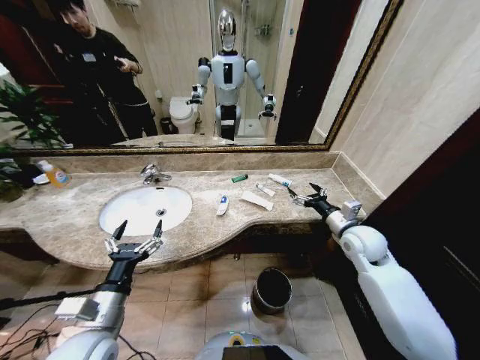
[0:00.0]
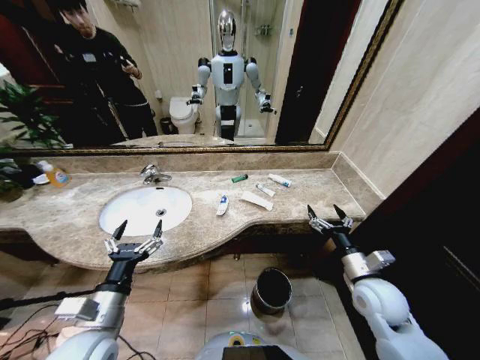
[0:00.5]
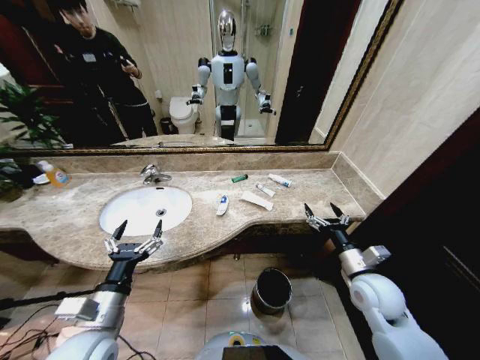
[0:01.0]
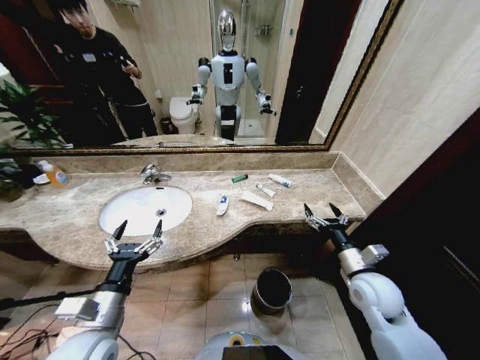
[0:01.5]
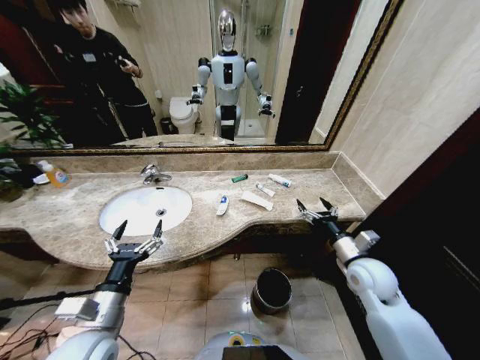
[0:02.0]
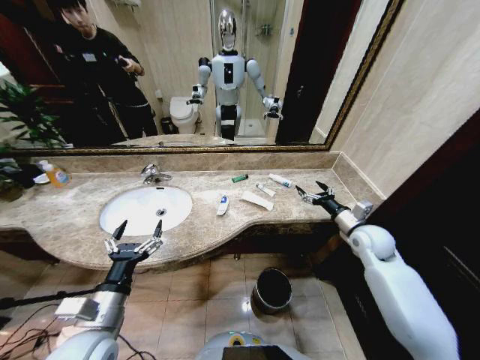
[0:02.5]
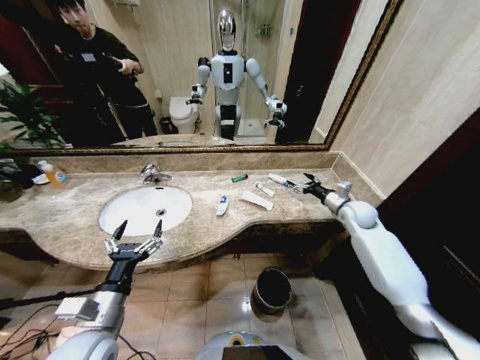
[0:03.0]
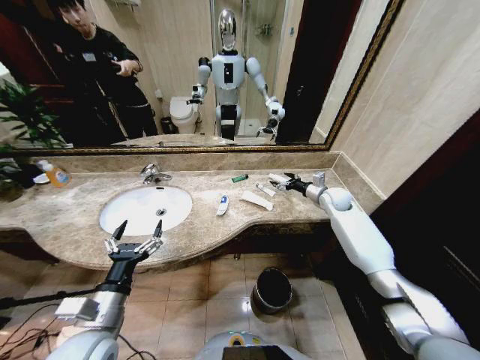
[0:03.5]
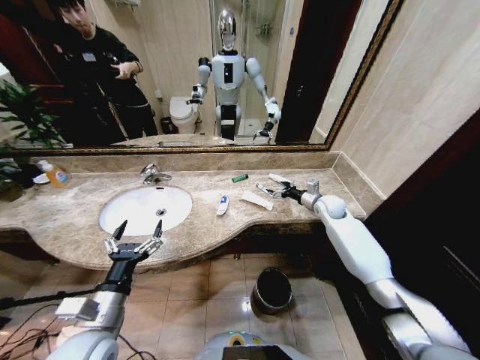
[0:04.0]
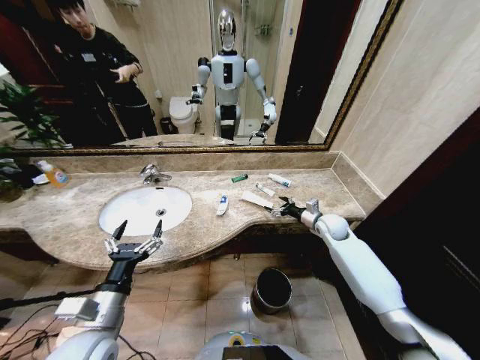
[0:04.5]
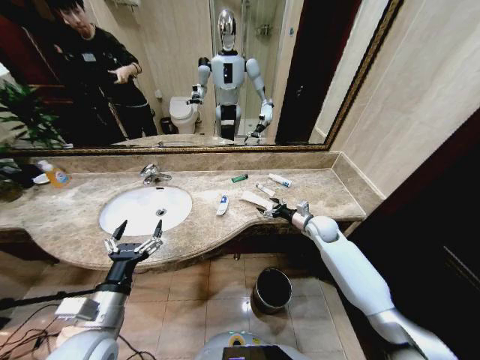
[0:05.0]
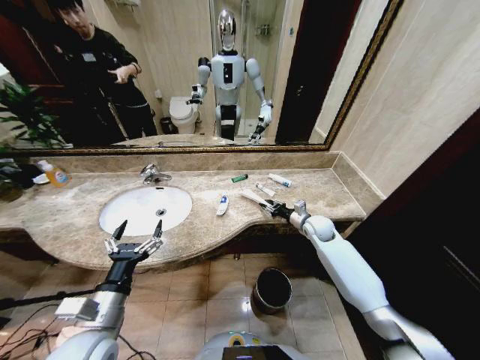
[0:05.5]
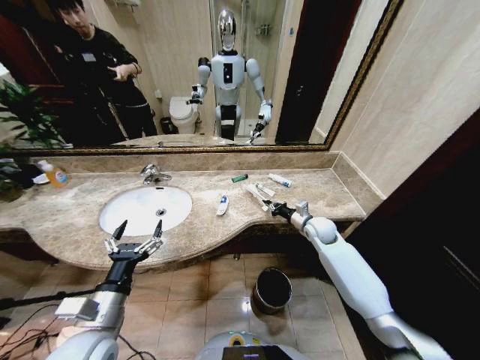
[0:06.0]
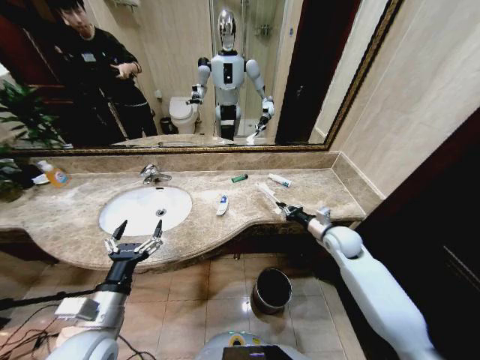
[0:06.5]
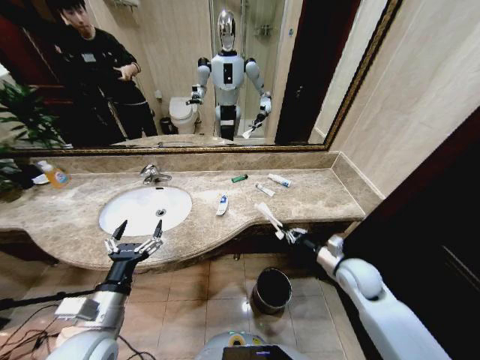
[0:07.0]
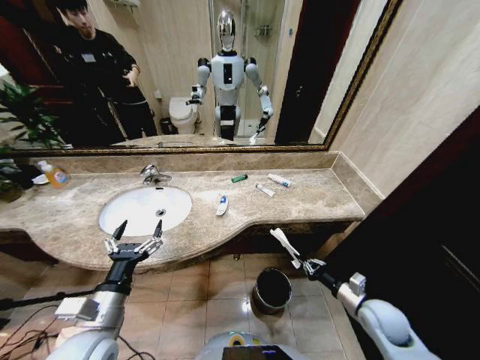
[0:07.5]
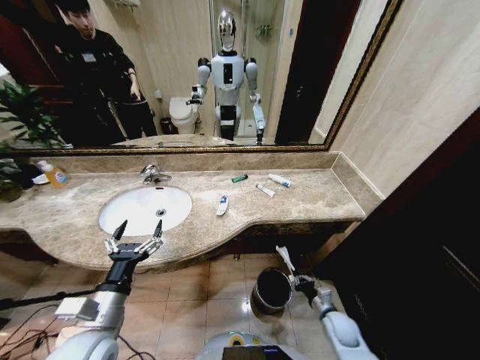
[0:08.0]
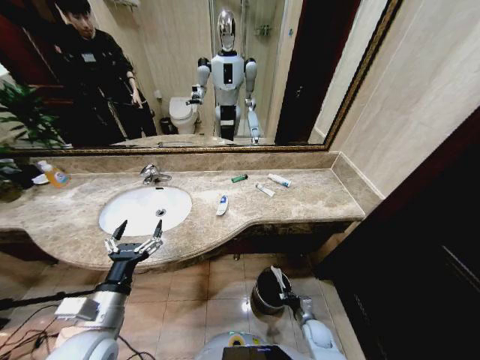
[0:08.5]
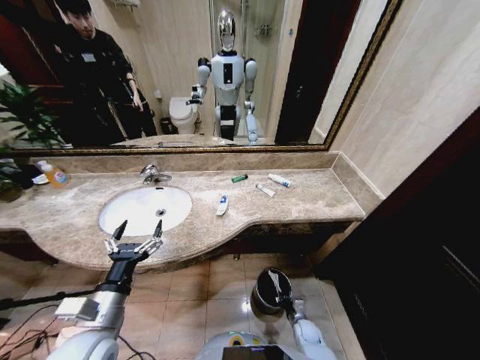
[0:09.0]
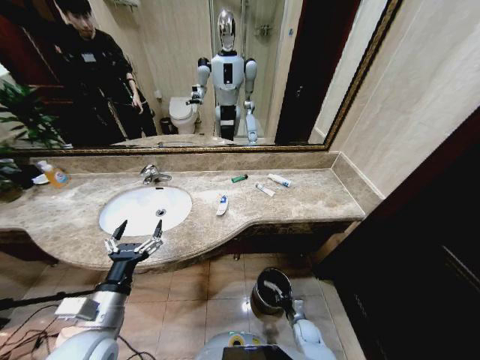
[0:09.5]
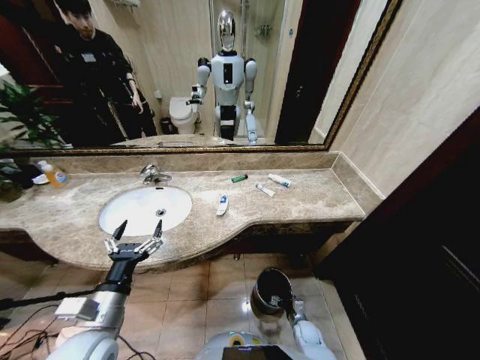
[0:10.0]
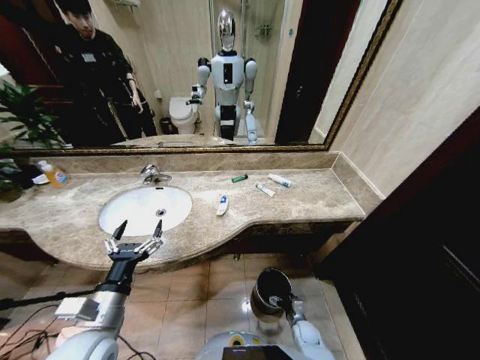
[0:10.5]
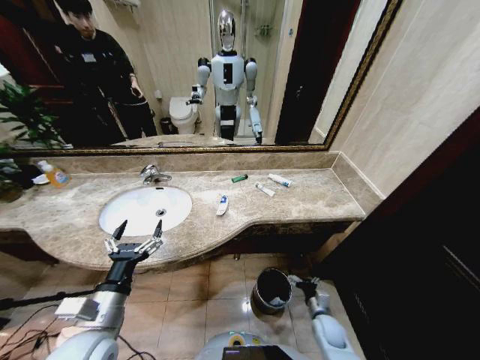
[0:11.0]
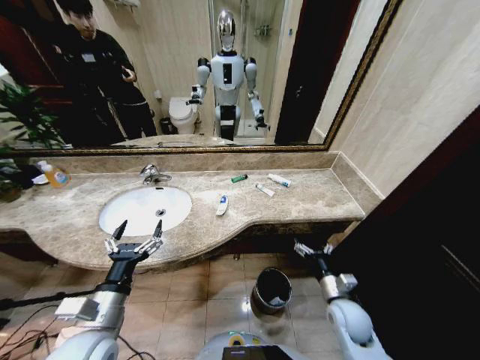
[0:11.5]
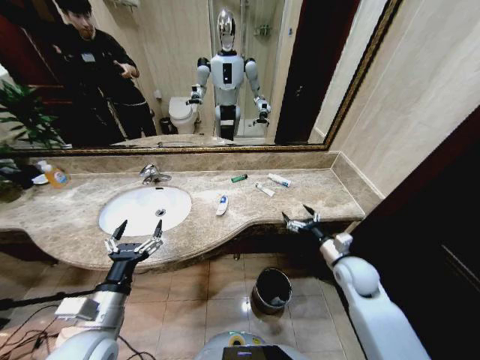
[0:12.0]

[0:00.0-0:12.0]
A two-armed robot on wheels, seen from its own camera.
Task of the whole recording: Pick up the trash from the sink and place it in the trash bin.
2.0 to 4.0 s: The right gripper is displaced forward by roughly 25 cm.
4.0 to 6.0 s: The right gripper moves backward and to the left, some 10 cm, and closes its fingers.
6.0 to 8.0 s: The right gripper is displaced backward and downward by about 30 cm.
8.0 to 10.0 s: The right gripper travels downward and to the left by some 15 cm, and opens.
10.0 to 12.0 s: The right gripper is displaced upward by about 35 cm.

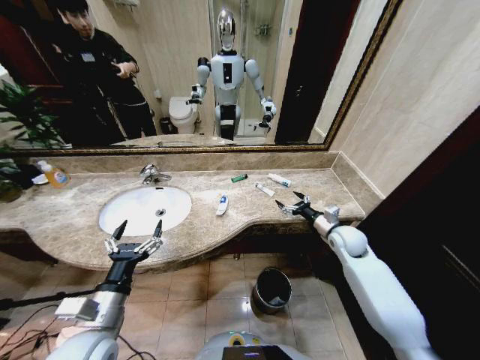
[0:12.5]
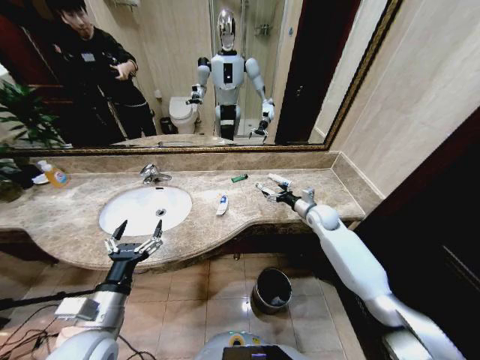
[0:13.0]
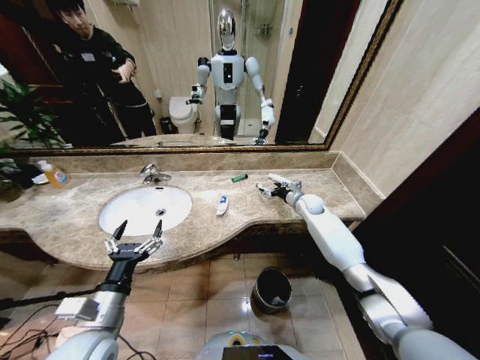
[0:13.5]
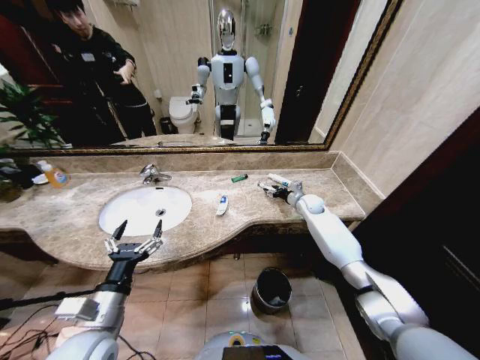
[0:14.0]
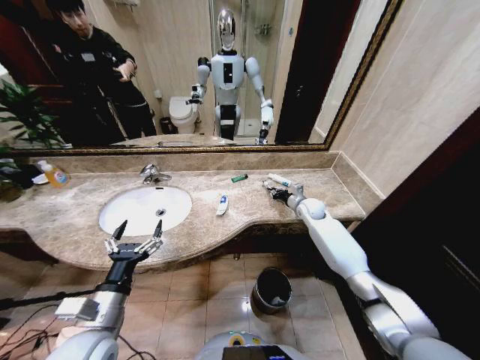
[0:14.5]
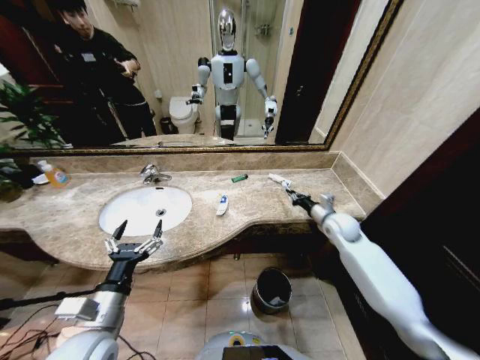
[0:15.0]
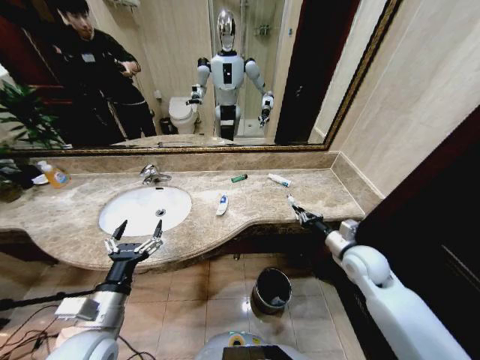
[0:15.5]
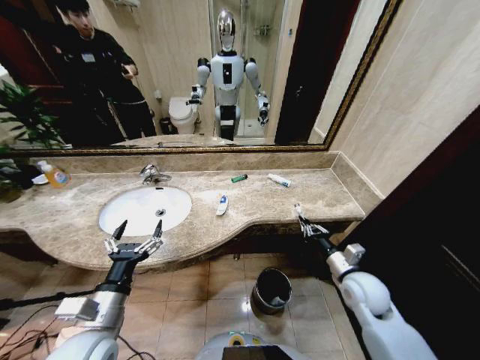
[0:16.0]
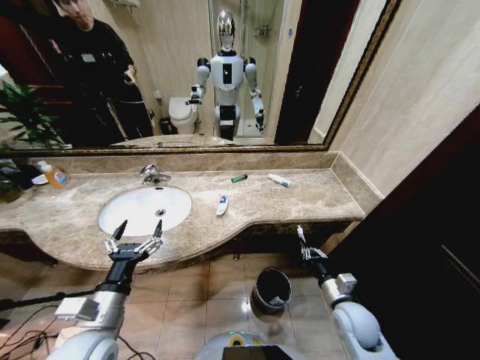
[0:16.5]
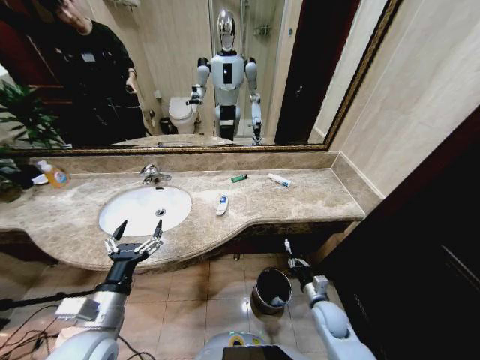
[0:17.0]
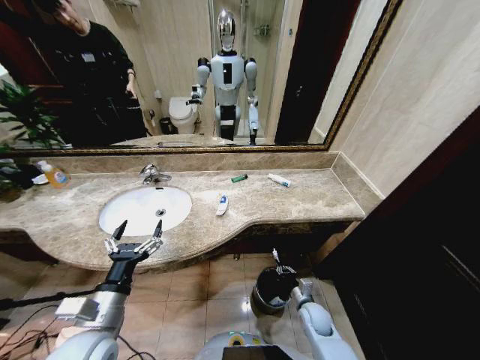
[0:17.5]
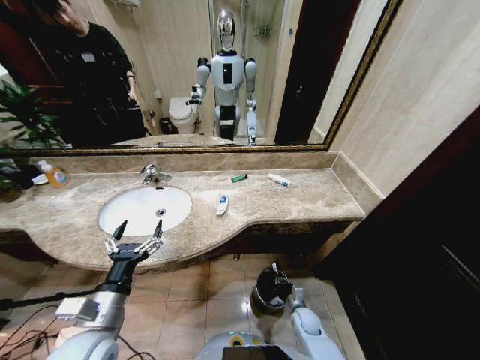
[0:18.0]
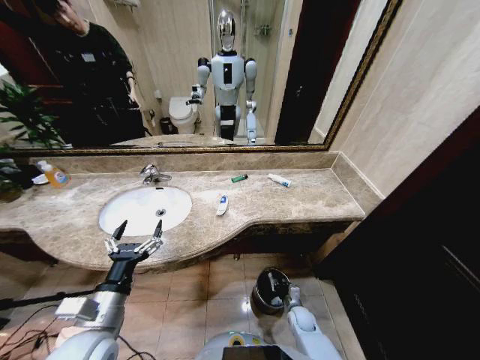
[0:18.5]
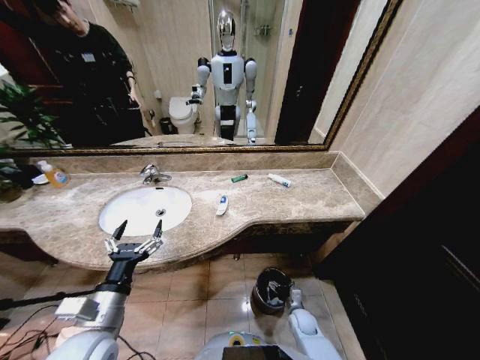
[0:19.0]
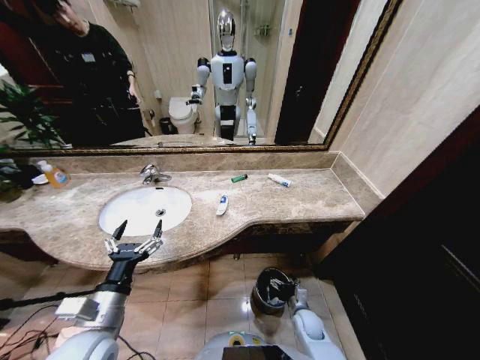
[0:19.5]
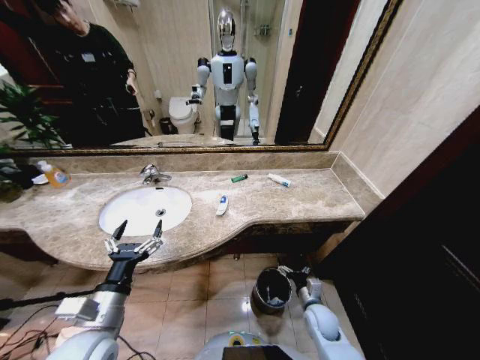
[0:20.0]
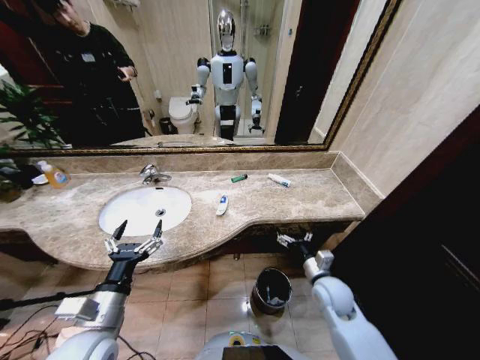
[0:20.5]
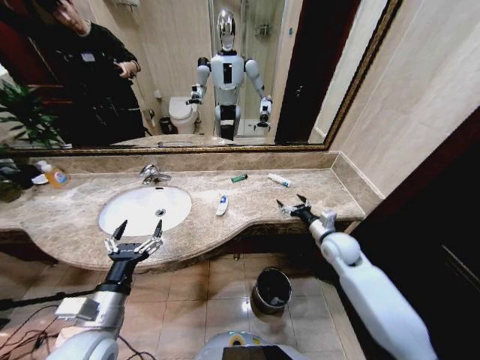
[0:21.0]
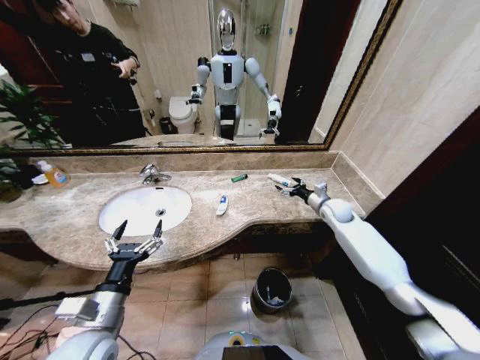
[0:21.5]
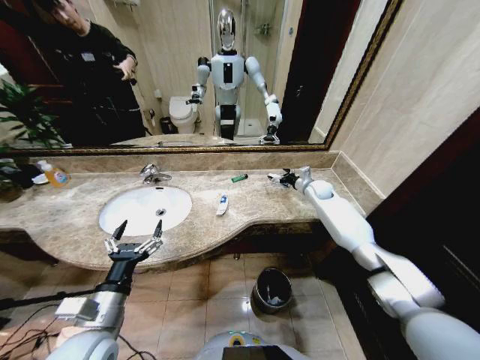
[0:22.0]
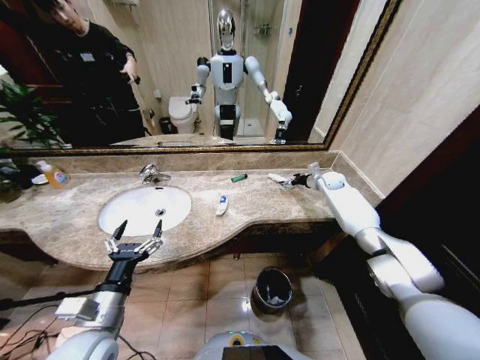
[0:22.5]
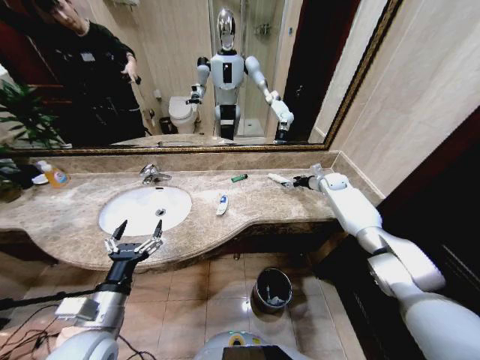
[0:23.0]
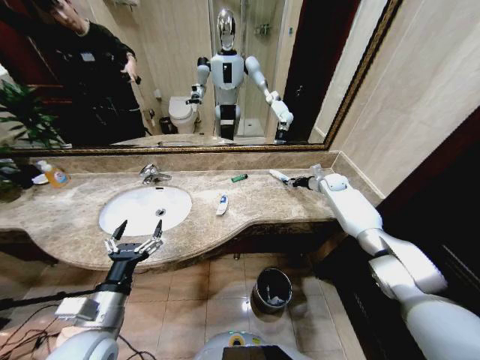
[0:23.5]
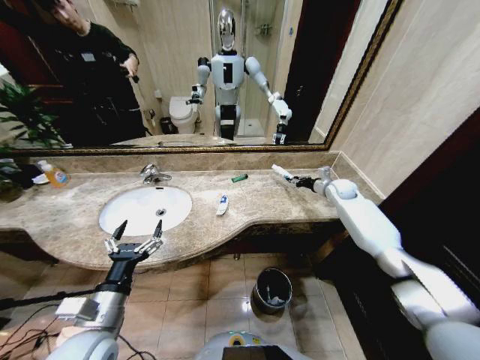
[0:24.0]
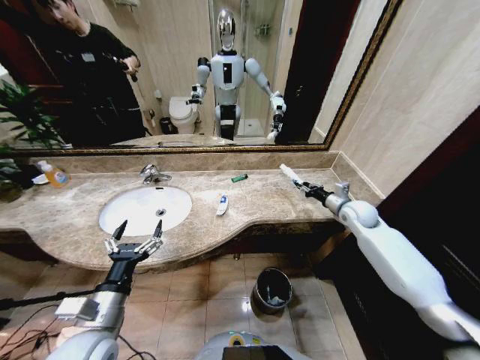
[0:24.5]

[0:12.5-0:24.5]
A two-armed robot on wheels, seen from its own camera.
Task of the whole recording: Pick up the trash from the sink and place it in the trash bin.
12.5 to 14.5 s: The right gripper heads forward, covering some 15 cm, and closes its fingers.
14.5 to 16.5 s: The right gripper travels backward by roughly 35 cm.
16.5 to 18.5 s: The right gripper shifts roughly 25 cm downward.
18.5 to 20.5 s: The right gripper heads upward, covering approximately 25 cm, and opens up.
20.5 to 22.5 s: The right gripper goes some 35 cm forward.
22.5 to 24.5 s: The right gripper travels backward by some 20 cm, and closes its fingers.

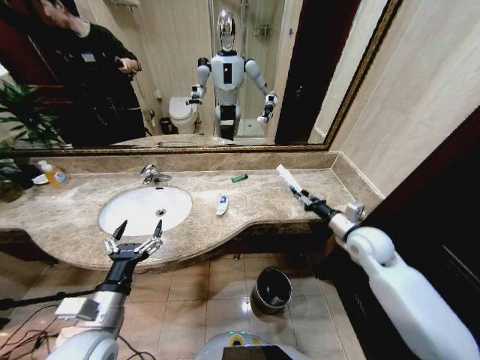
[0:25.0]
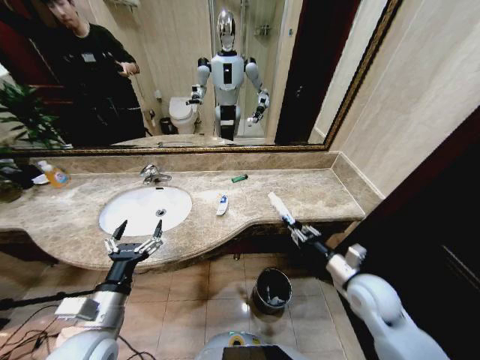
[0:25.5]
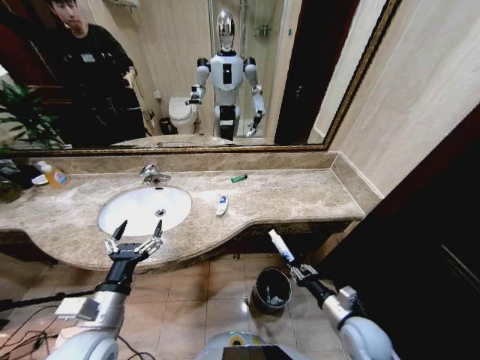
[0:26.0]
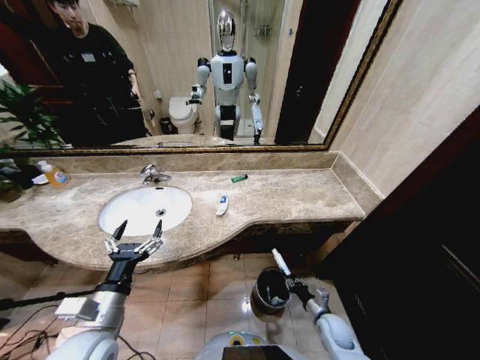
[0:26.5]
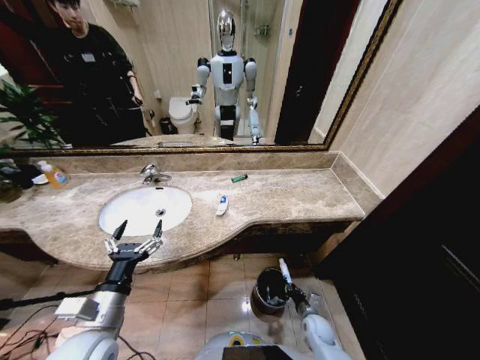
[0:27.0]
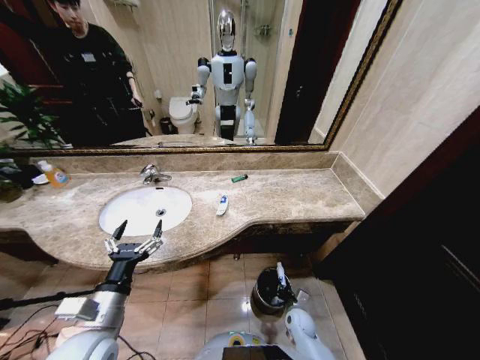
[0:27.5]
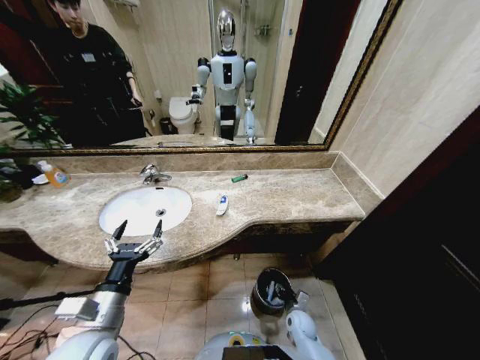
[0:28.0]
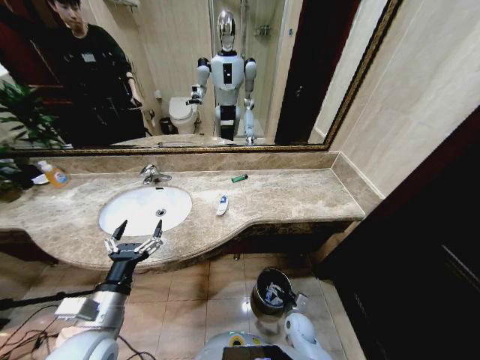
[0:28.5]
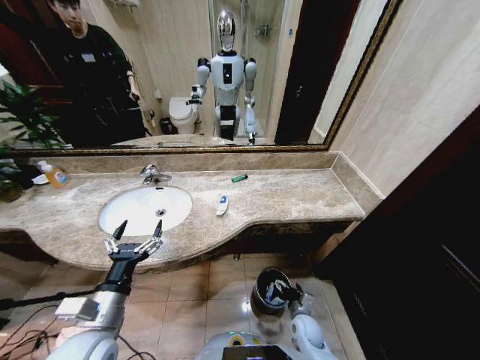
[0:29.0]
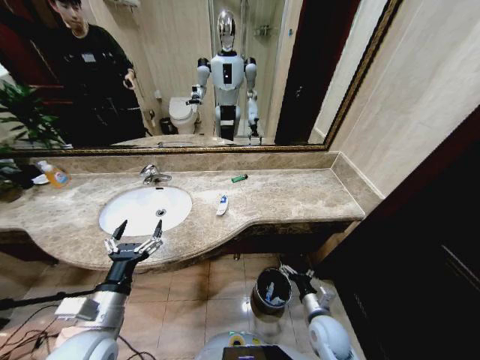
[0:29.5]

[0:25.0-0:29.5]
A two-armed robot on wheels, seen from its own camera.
Task of the whole recording: Pick up the trash from the sink and place it in the trash bin.
25.0 to 27.0 s: The right gripper moves downward, about 35 cm.
27.0 to 29.5 s: The right gripper heads upward, covering about 15 cm, and opens.
